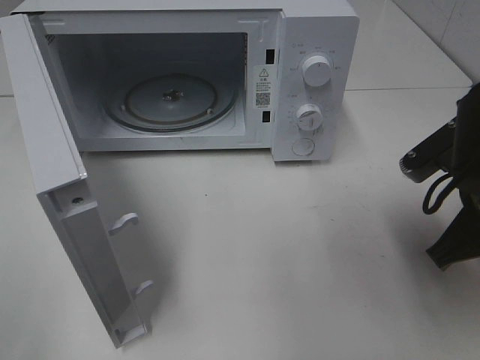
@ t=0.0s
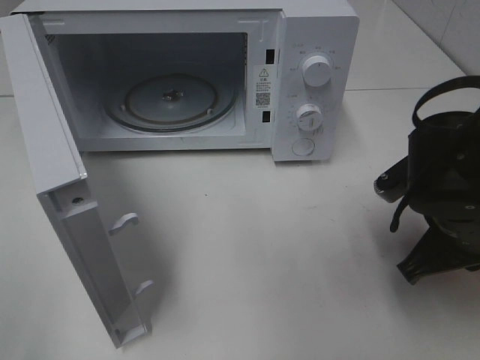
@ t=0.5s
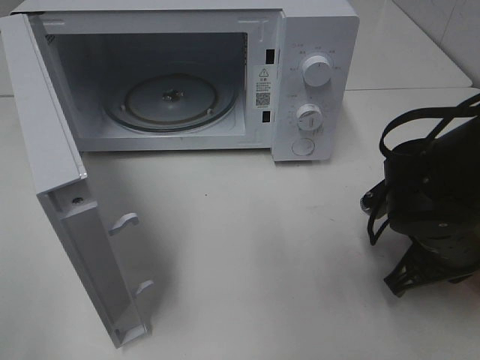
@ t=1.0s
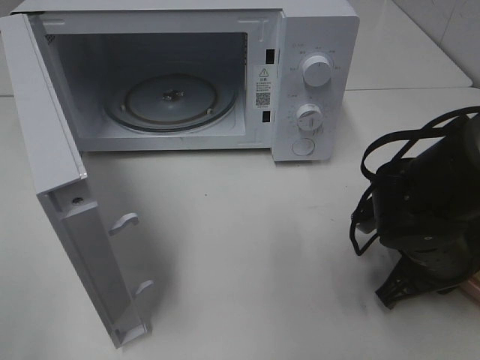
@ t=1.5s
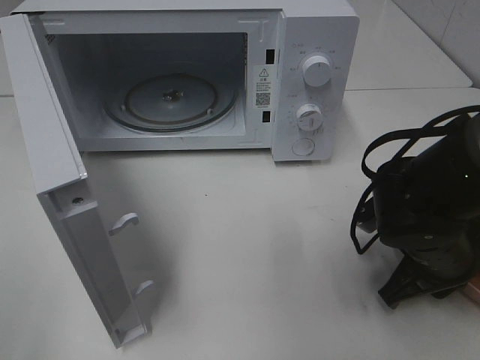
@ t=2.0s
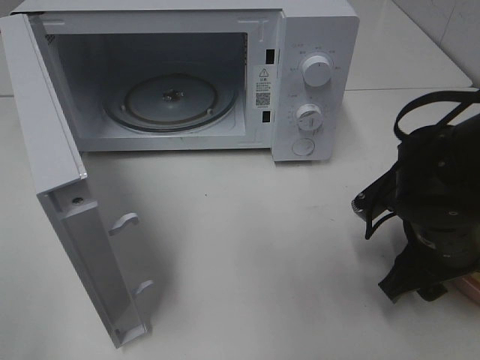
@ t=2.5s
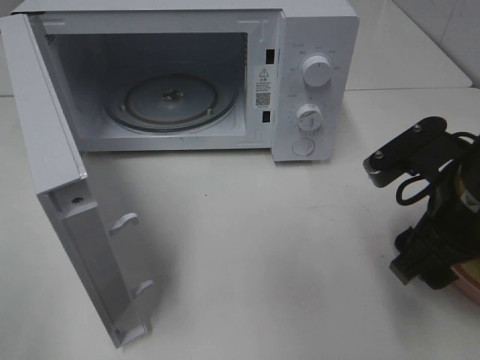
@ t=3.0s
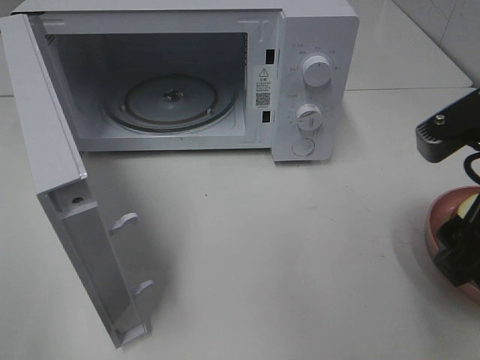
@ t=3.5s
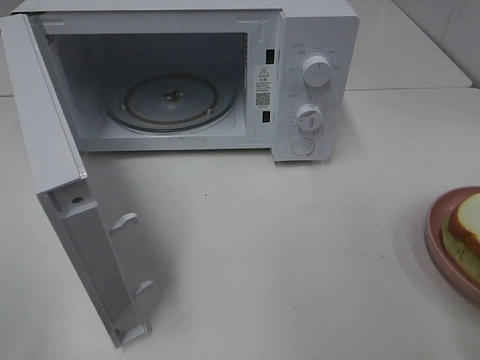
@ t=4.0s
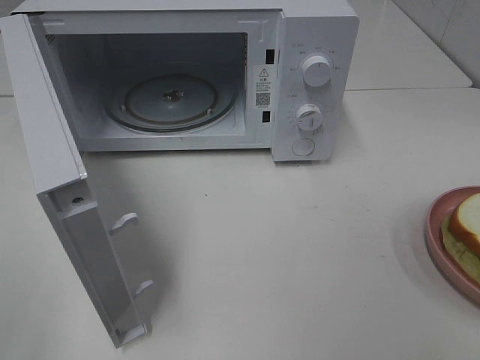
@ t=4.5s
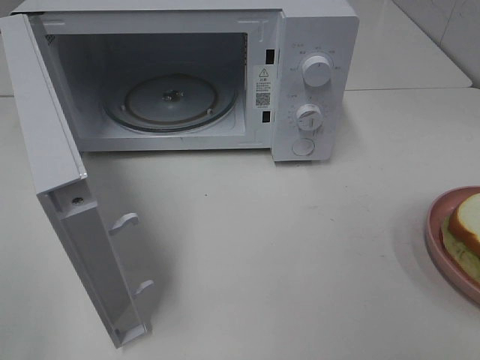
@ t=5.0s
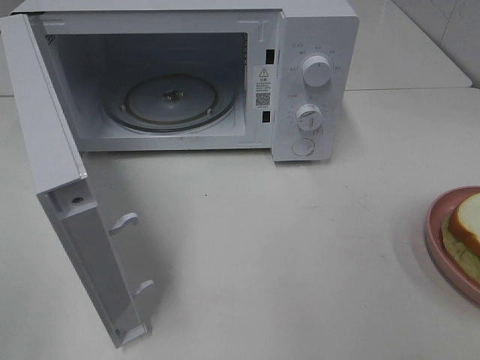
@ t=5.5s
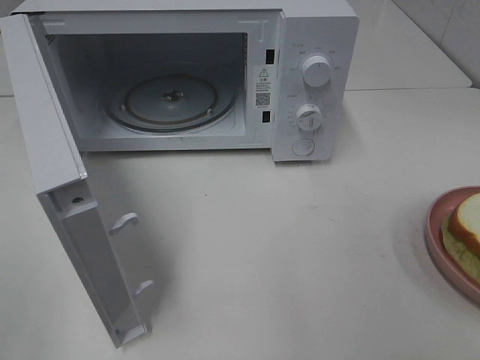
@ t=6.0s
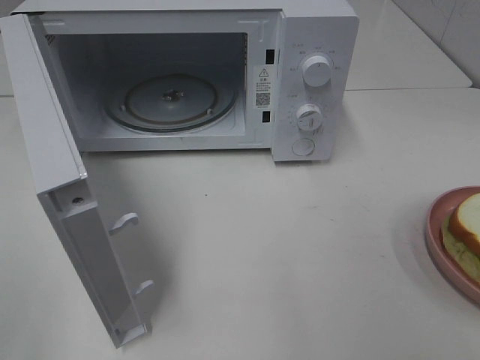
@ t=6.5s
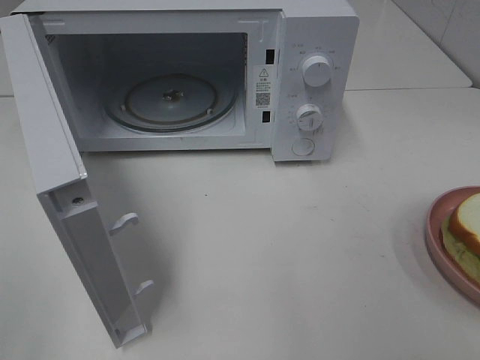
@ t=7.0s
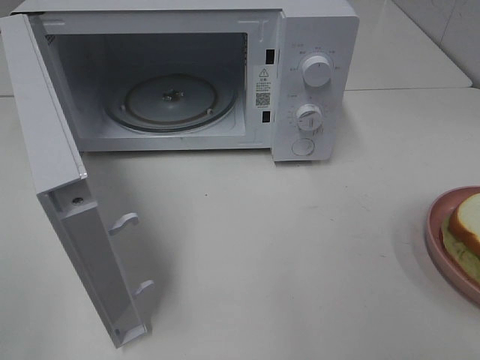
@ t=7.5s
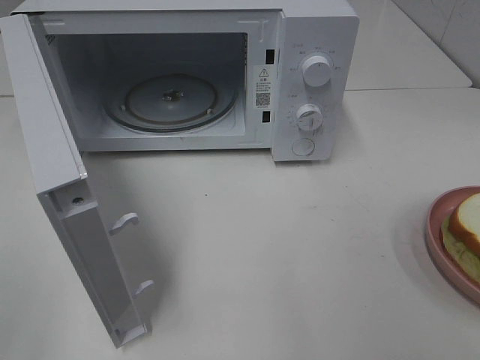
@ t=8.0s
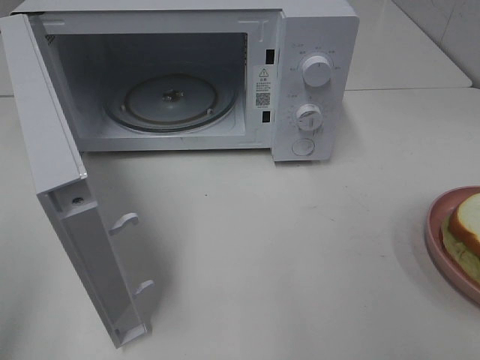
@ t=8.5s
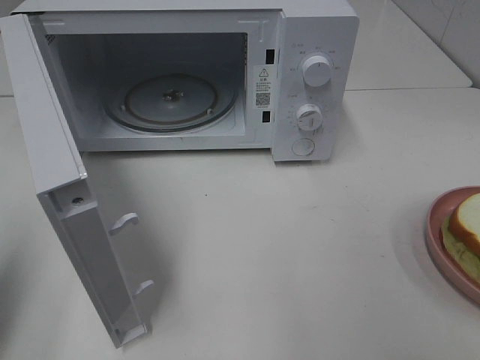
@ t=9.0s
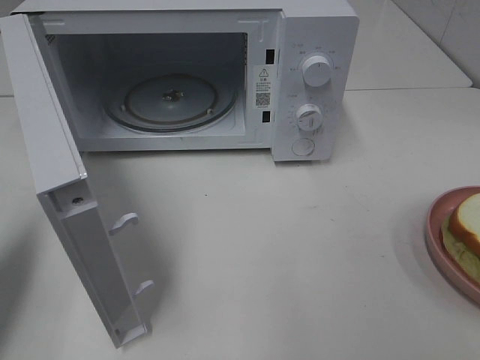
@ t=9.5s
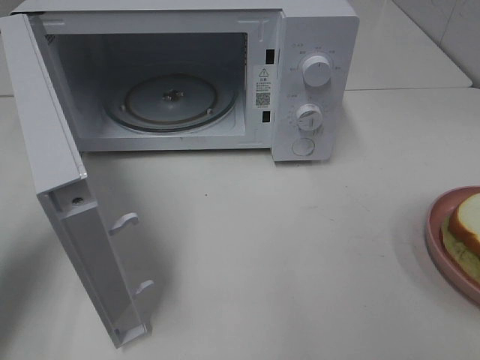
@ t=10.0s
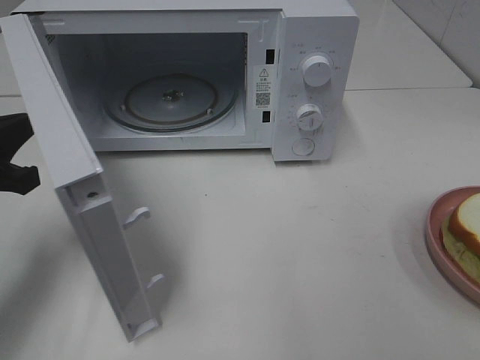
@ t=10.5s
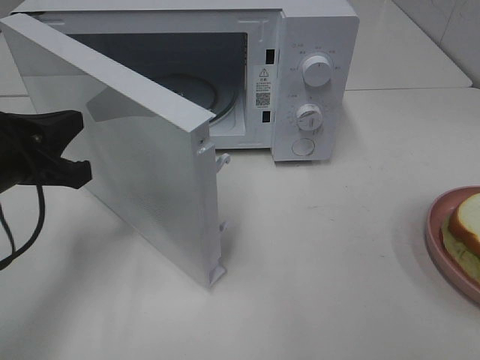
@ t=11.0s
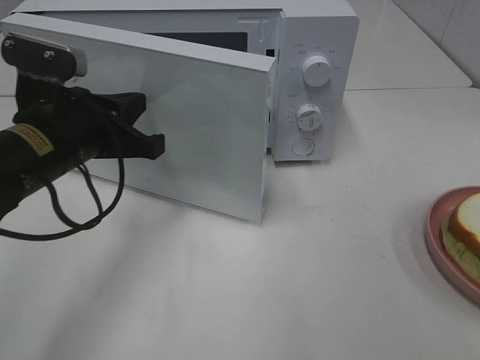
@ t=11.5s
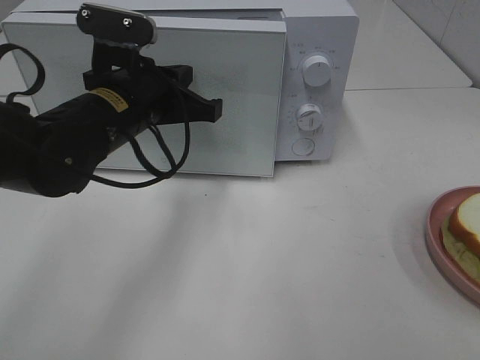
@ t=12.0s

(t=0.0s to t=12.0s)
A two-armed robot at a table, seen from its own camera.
Task of the whole recording: Heat Sandwich.
Step, t=0.0s - t=3.0s: Right hand: place the plate on the table.
t=0.0s - t=2.0s: The right gripper is displaced downward by approximately 10 cm.
t=2.0s - t=4.0s: The right gripper heads upward and backward, covering roughly 25 cm, and opens up.
t=6.0s - t=8.0s: Both grippers stay about where they are.
t=8.0s - t=10.0s: The left gripper is displaced forward and downward by approximately 25 cm, and closes.
t=10.0s - t=12.0s: The left gripper heads to the right and forward, covering some 20 cm.

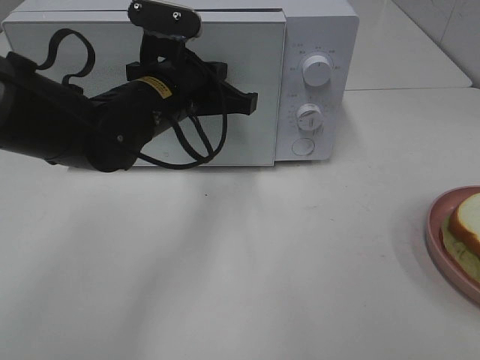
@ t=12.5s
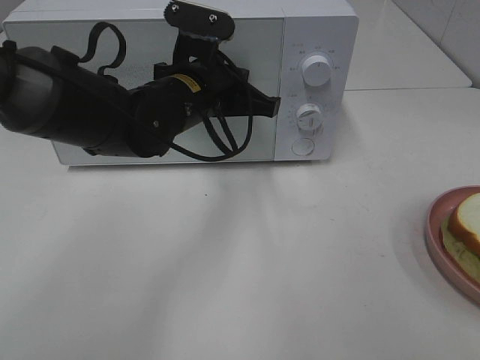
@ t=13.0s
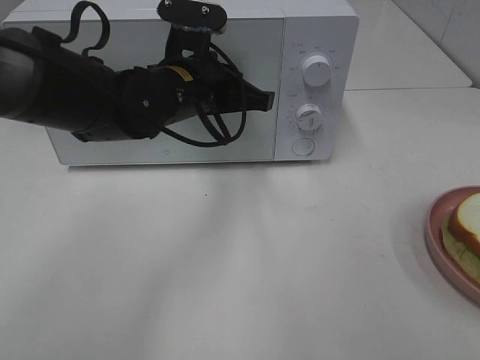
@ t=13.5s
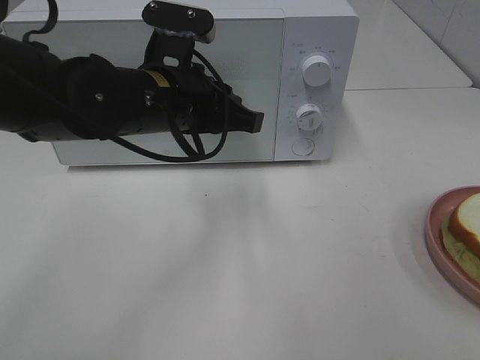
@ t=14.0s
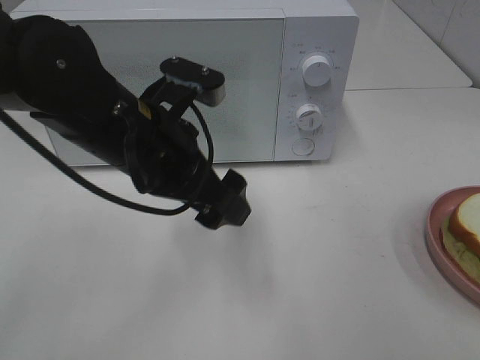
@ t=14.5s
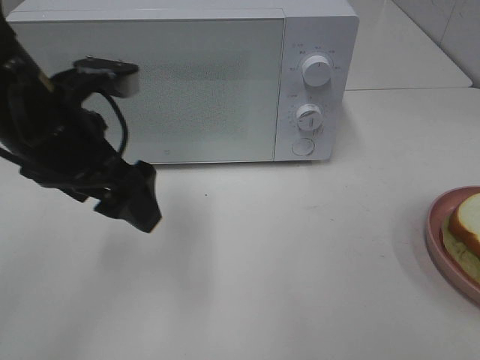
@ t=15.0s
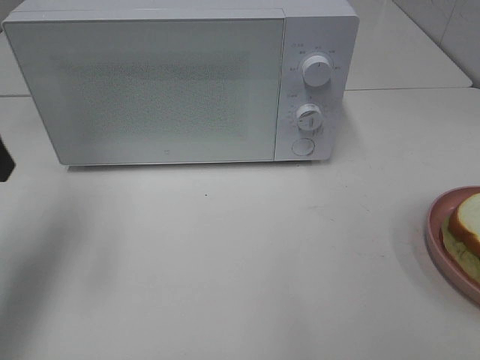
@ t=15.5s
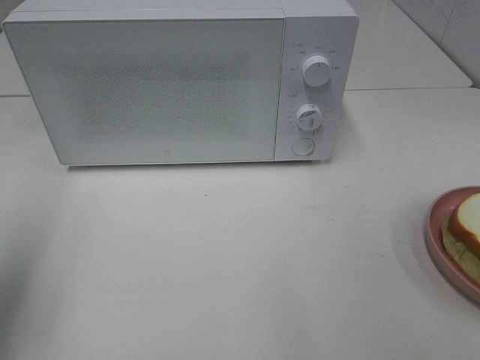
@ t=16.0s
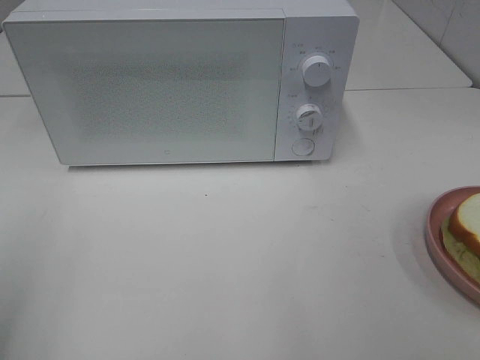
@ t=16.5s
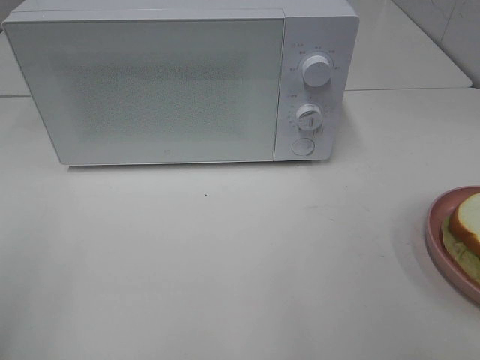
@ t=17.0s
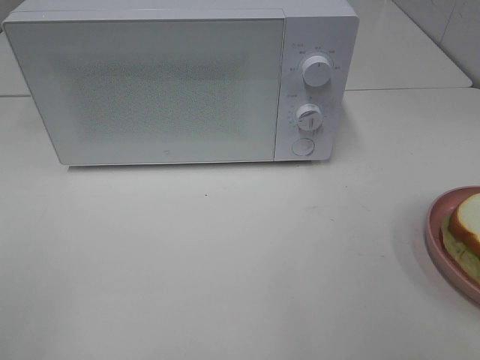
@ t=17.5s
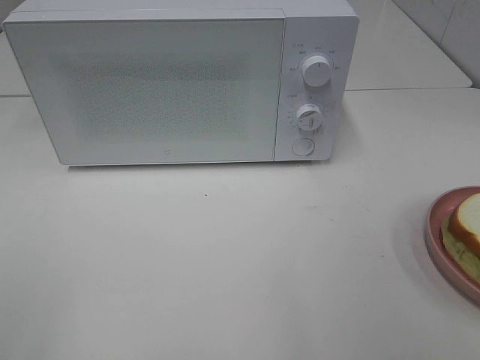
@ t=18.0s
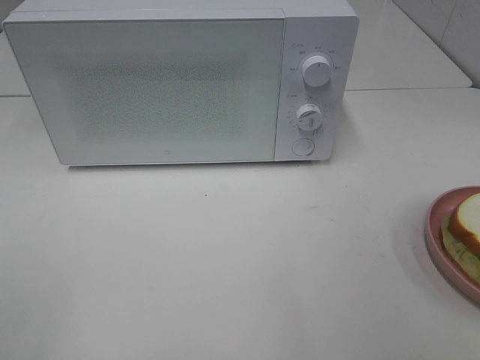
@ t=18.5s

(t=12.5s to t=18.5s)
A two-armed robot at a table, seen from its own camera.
Task of the whole recording: Heat Sandwich.
t=12.5s - t=14.5s: The left gripper is displaced backward by about 10 cm, and opens its fingers.
t=14.5s - t=16.5s: The left gripper shifts some 30 cm to the left and backward.

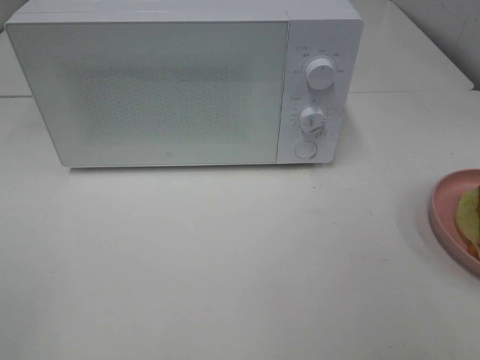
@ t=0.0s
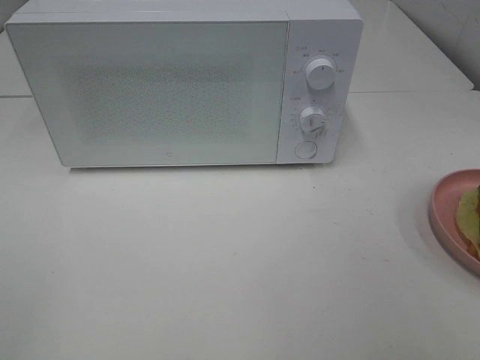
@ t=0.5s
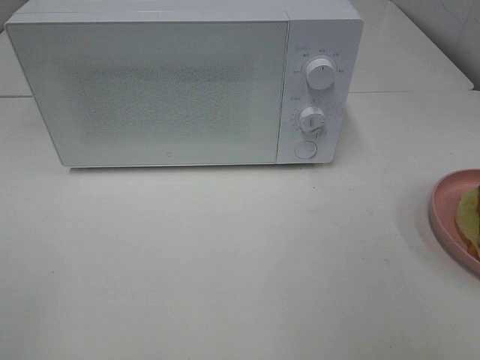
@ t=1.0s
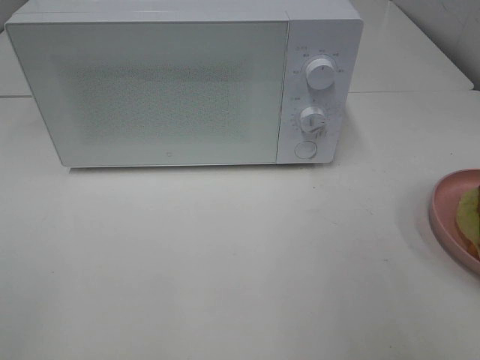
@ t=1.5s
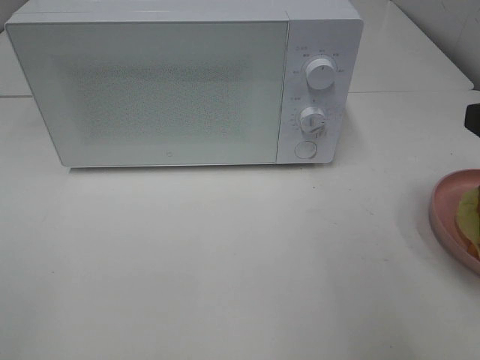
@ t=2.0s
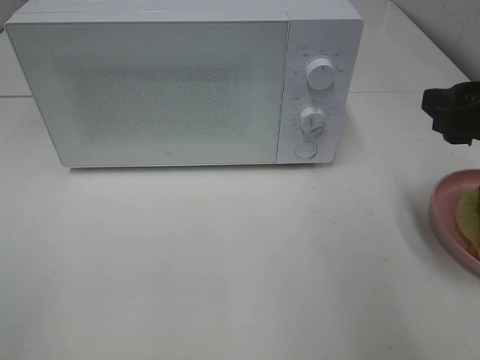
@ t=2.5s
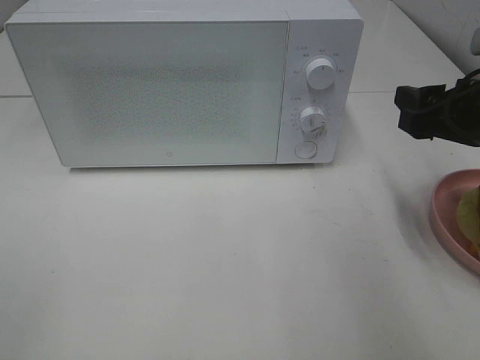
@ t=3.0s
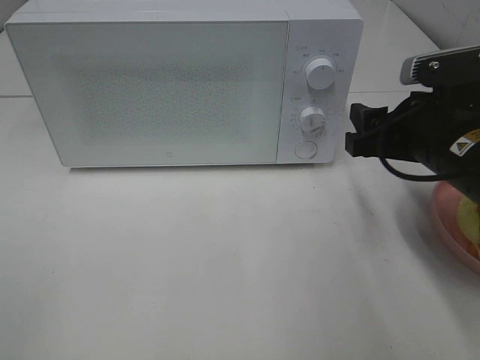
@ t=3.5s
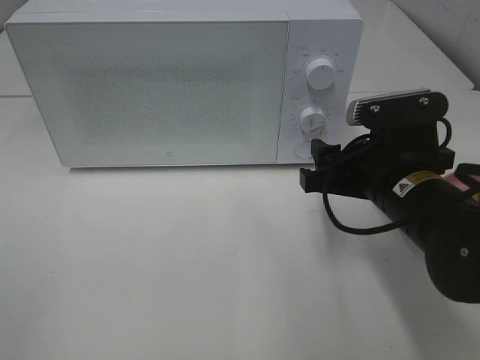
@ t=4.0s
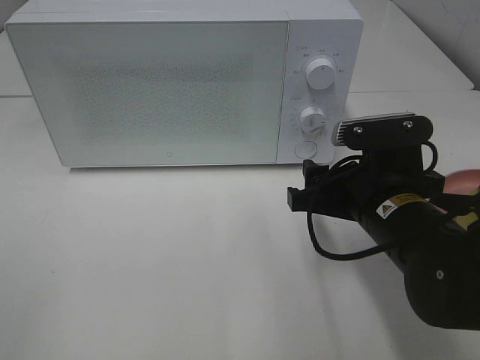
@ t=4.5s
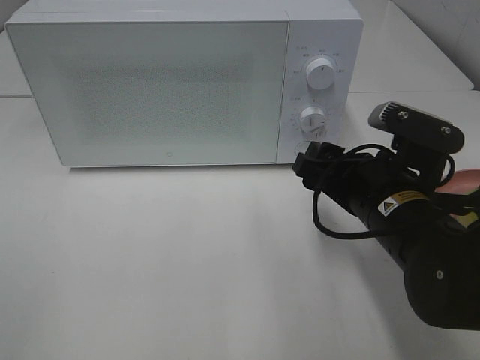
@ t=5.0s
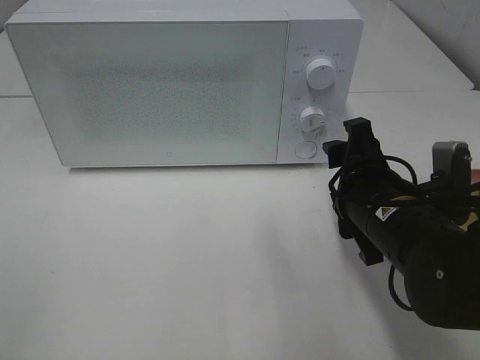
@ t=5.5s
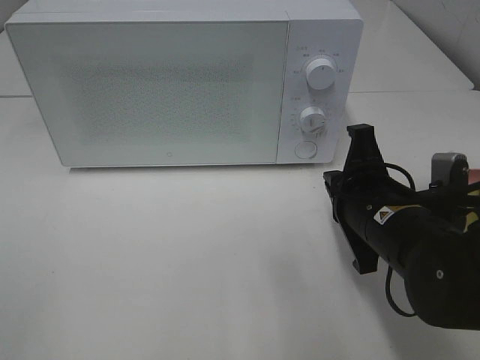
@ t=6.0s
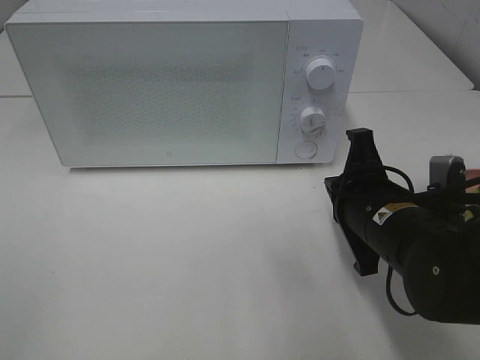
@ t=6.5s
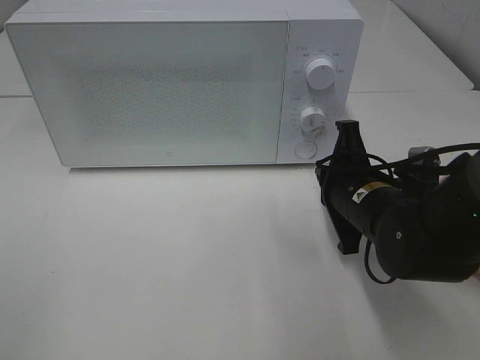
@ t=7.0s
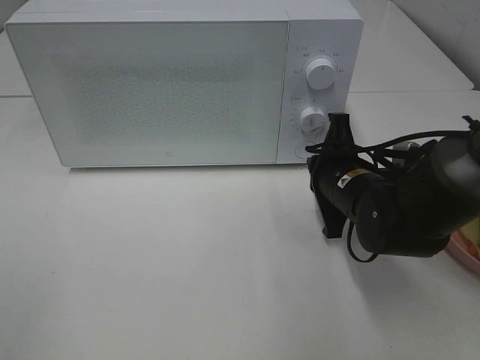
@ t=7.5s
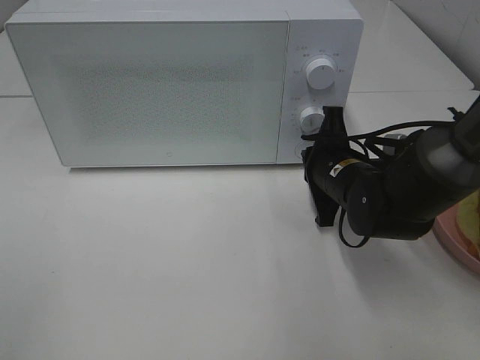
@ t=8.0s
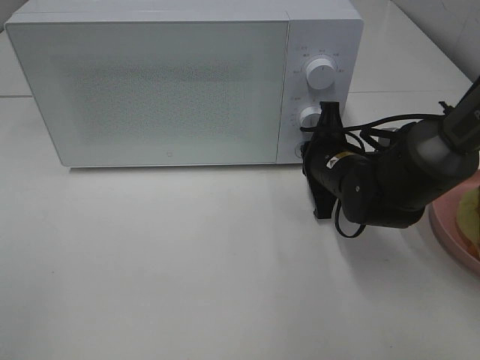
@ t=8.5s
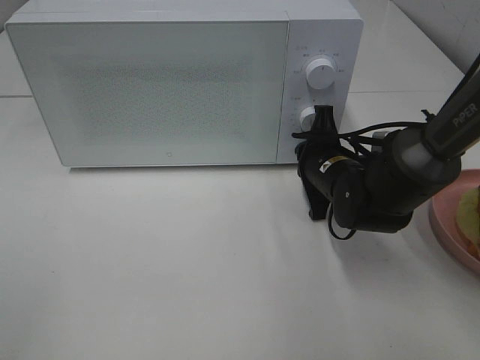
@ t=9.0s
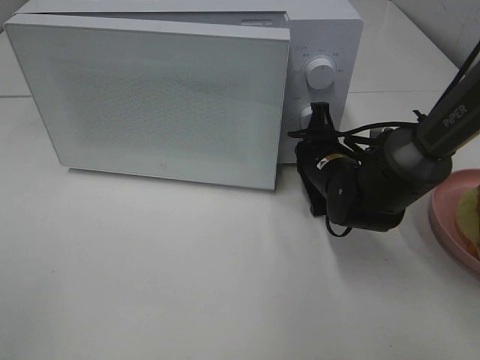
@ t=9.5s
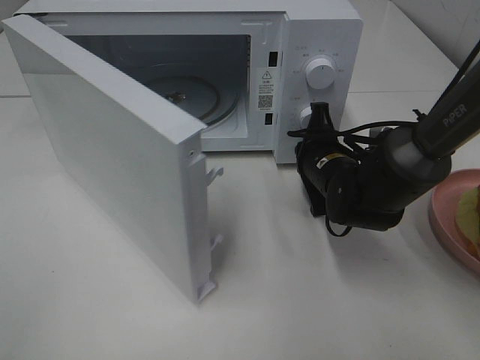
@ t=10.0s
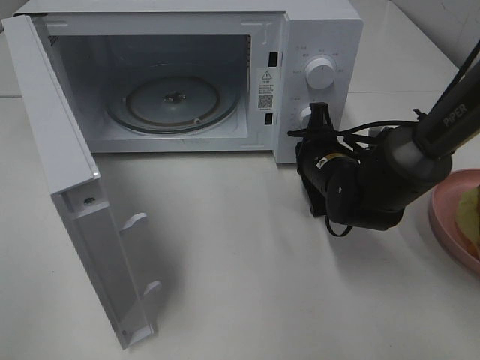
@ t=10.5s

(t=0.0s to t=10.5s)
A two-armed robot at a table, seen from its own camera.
Task of the whole recording: Heat Sandwich.
t=2.0s - t=4.0s: The right gripper is displaced downward, to the left and forward by roughly 15 cm.
t=4.0s - t=6.5s: The right gripper closes its fingers.
t=6.5s - t=8.5s: The right gripper shifts about 10 cm forward.
